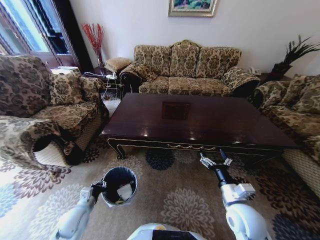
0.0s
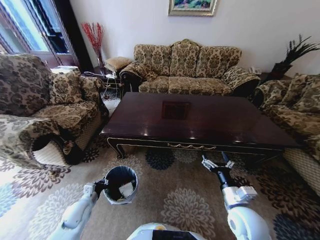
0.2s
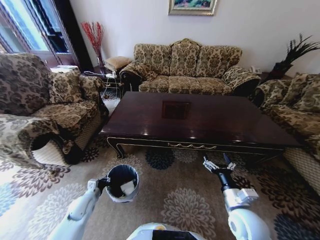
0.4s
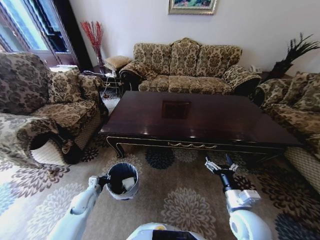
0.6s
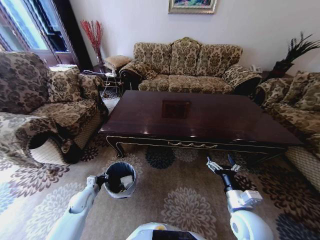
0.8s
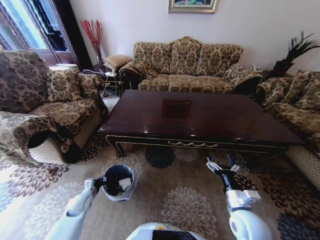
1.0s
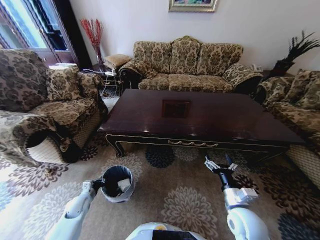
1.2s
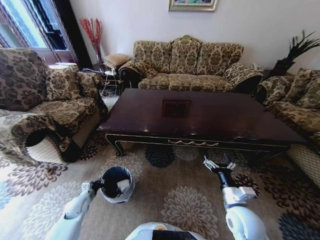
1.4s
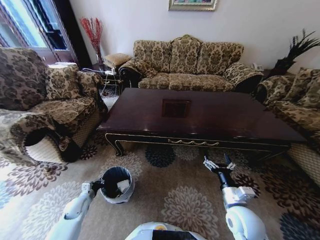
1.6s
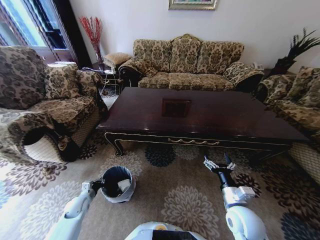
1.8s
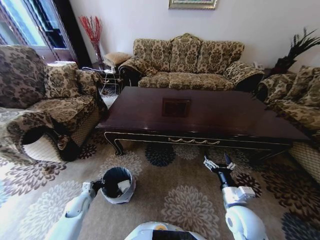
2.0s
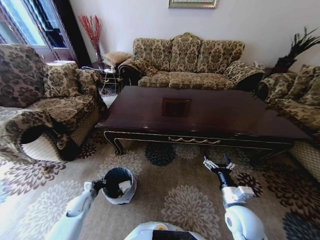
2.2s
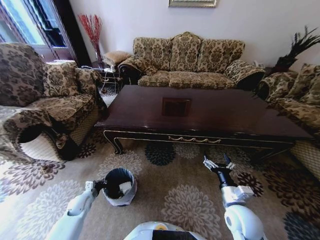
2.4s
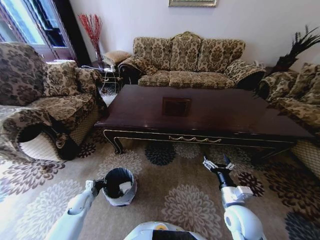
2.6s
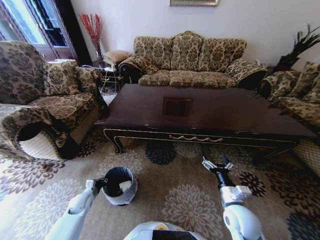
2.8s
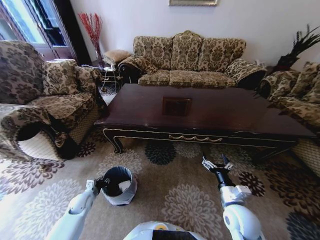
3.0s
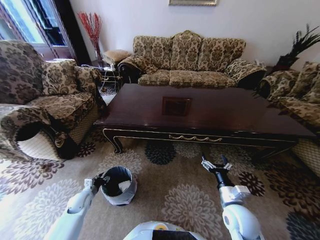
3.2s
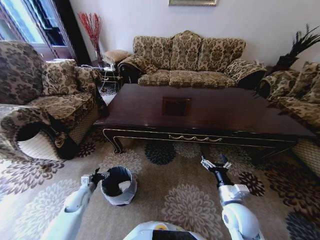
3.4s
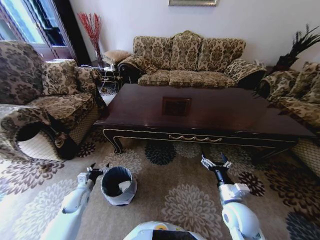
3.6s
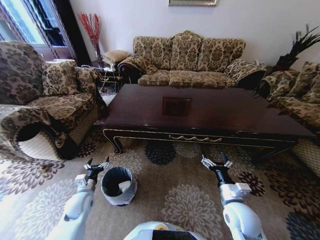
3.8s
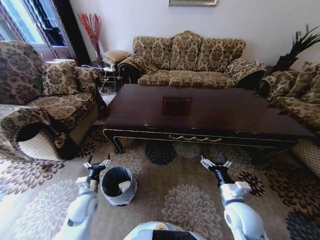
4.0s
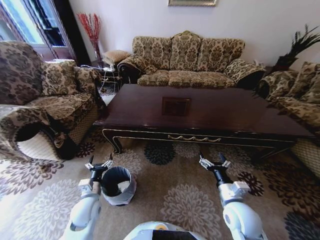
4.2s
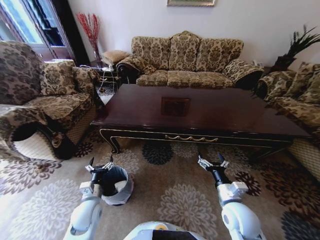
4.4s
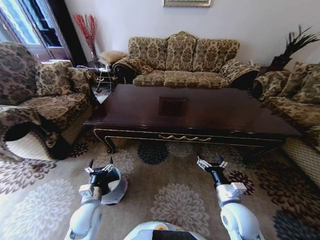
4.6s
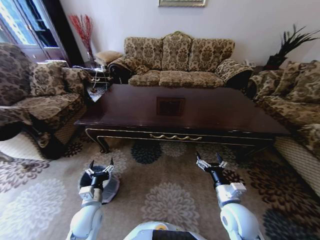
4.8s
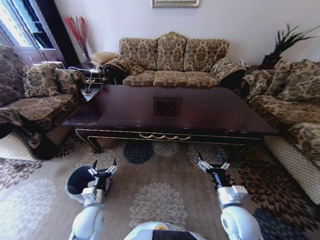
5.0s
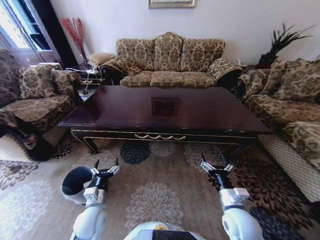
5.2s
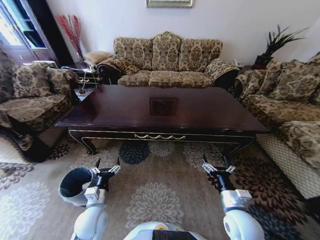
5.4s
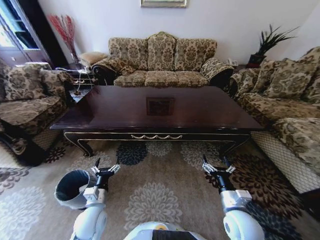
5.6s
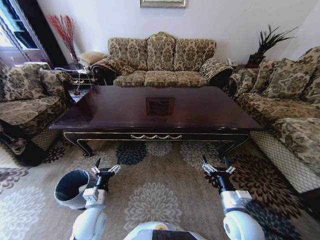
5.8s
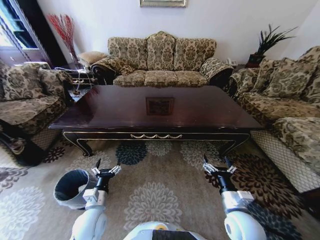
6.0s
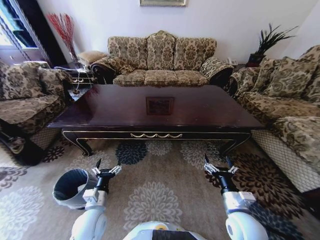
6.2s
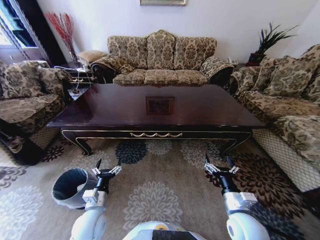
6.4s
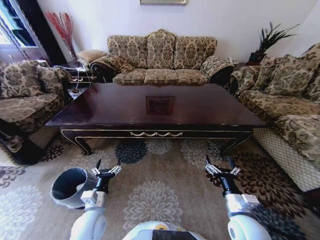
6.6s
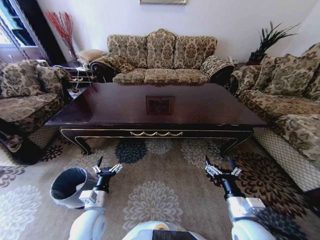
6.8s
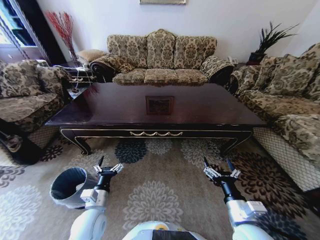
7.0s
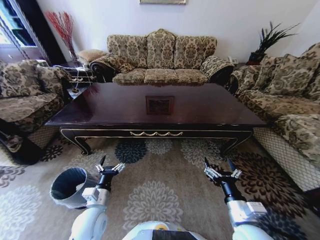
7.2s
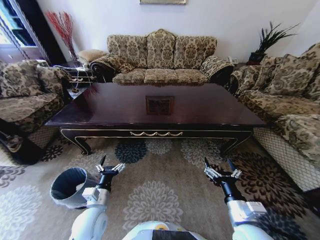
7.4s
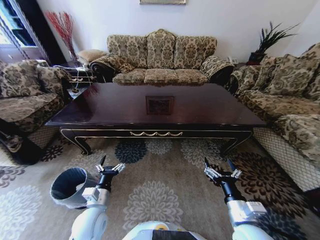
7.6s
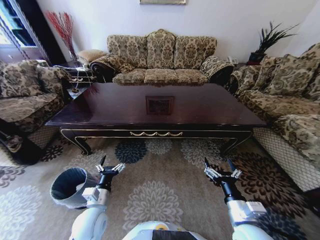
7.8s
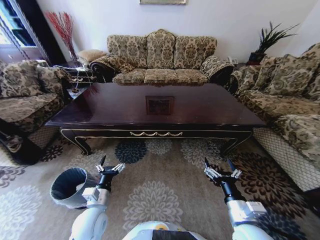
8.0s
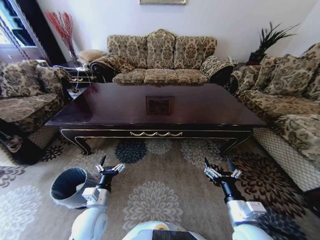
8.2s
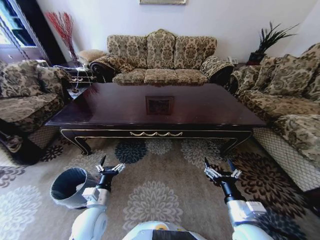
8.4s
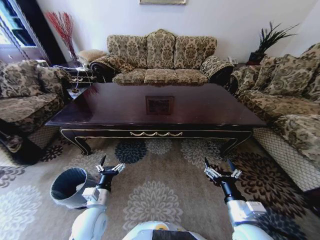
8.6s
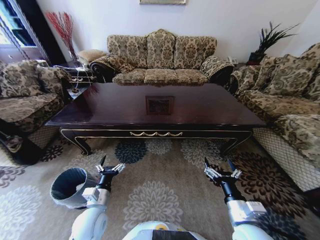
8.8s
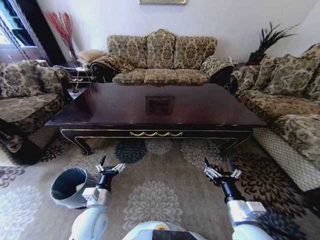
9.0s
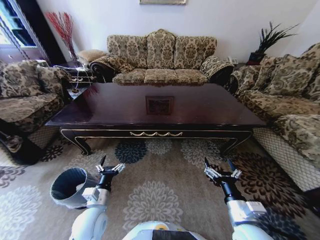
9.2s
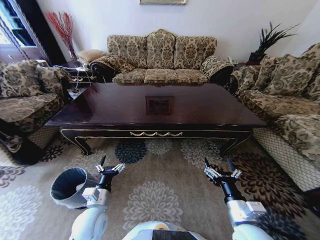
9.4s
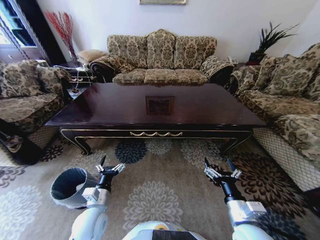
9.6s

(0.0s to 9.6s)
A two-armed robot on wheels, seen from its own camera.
Task of the whole recording: Move to the front of the table and place the trash on the table into the trash bin.
0.0s - 1.6s: The left gripper is displaced downward, to the left and forward by some 10 cm.
1.6s - 3.2s: The left gripper opens.
3.2s - 4.8s: The left gripper shifts roughly 20 cm to the right, upward and backward, and opens.
6.4s - 8.0s: The grippers move only a little.
8.0s - 9.6s: Both grippers stay put.

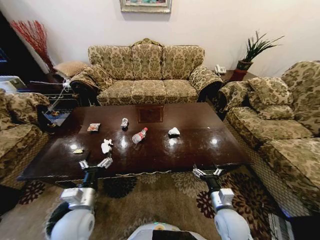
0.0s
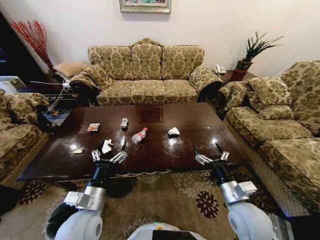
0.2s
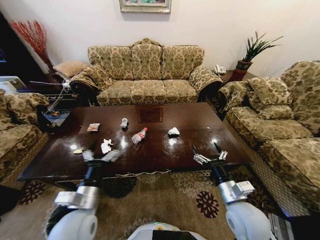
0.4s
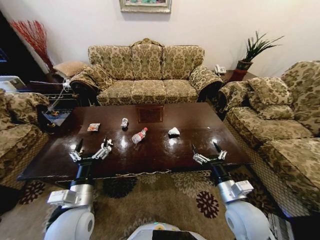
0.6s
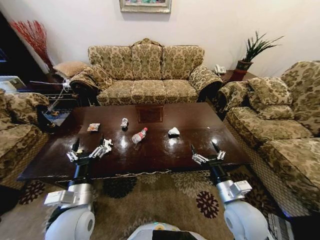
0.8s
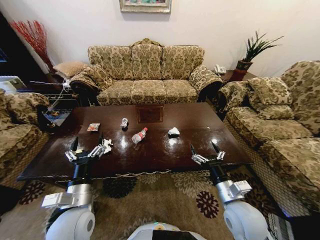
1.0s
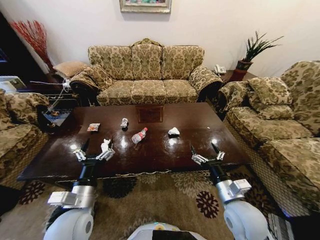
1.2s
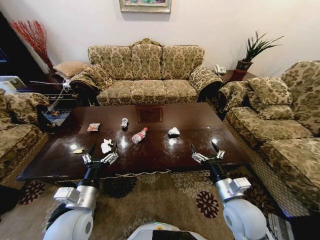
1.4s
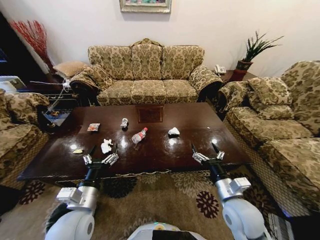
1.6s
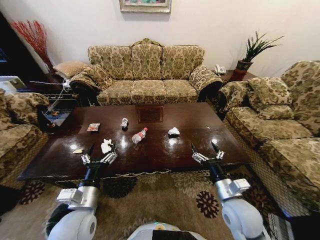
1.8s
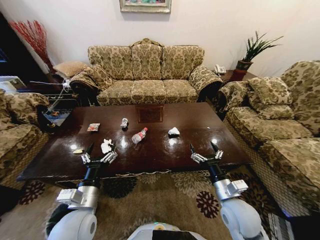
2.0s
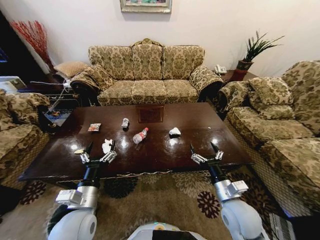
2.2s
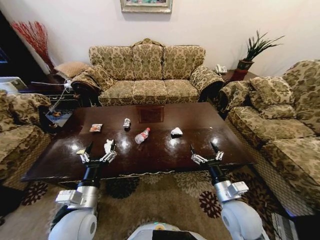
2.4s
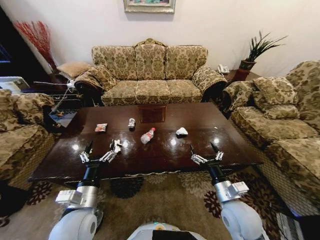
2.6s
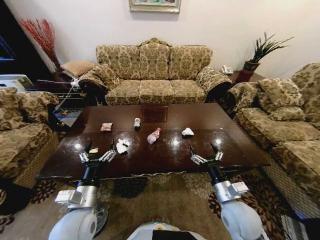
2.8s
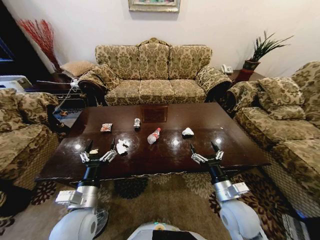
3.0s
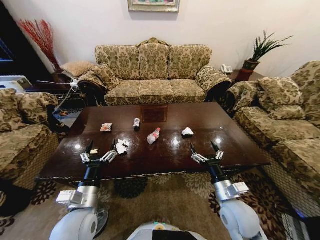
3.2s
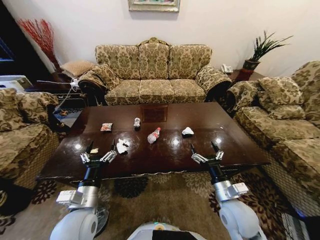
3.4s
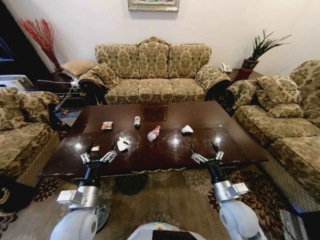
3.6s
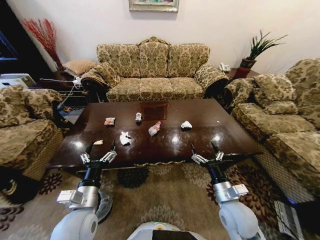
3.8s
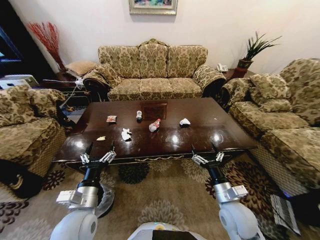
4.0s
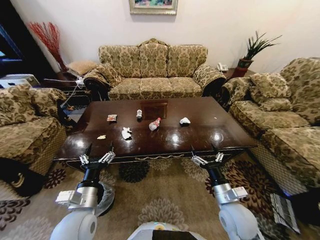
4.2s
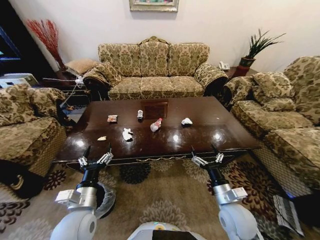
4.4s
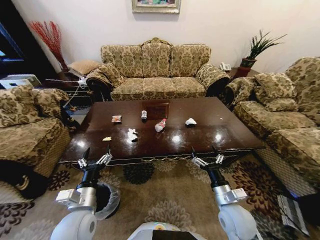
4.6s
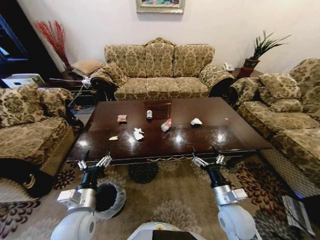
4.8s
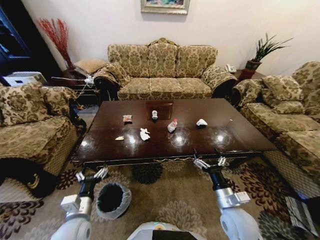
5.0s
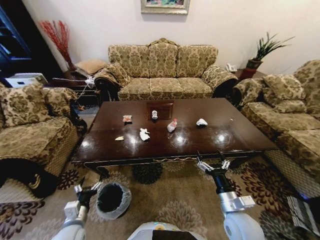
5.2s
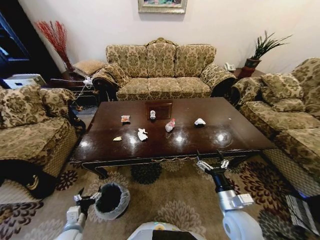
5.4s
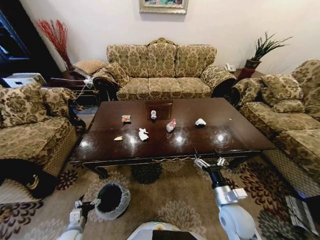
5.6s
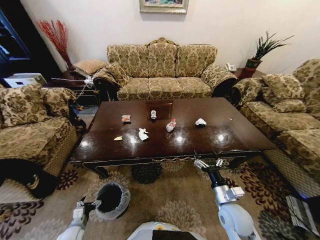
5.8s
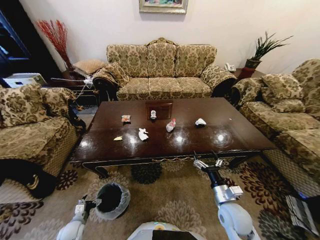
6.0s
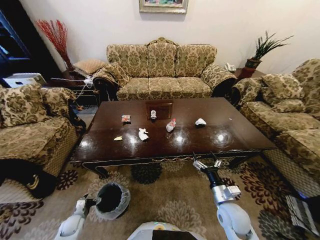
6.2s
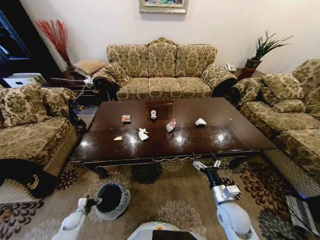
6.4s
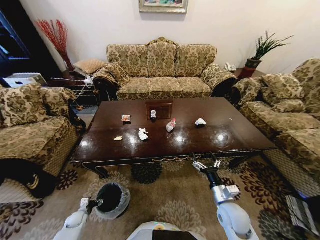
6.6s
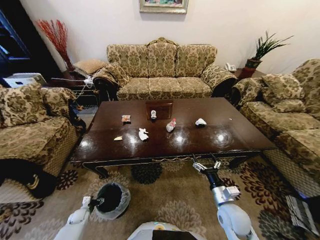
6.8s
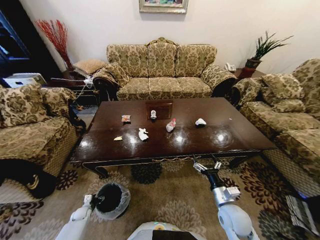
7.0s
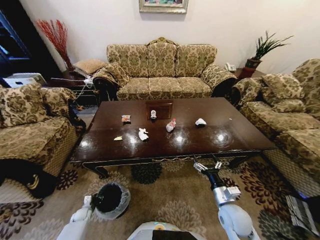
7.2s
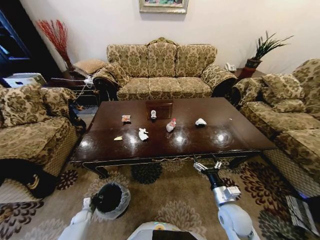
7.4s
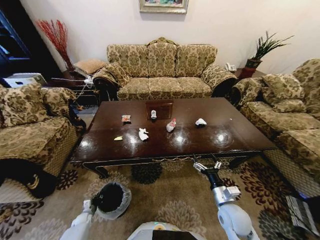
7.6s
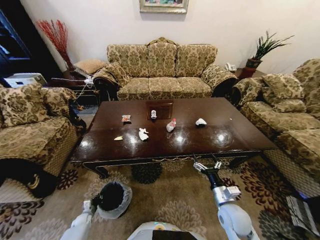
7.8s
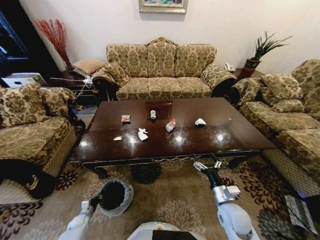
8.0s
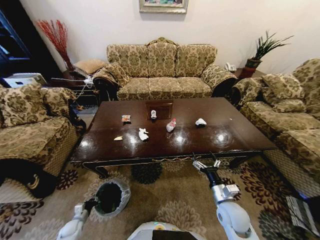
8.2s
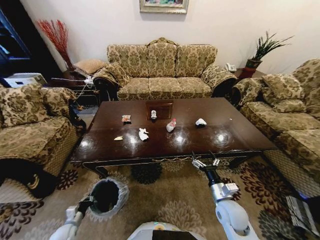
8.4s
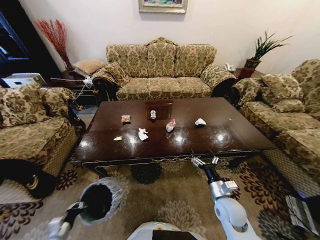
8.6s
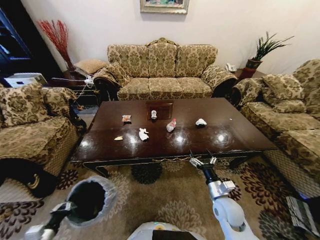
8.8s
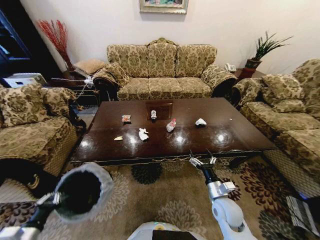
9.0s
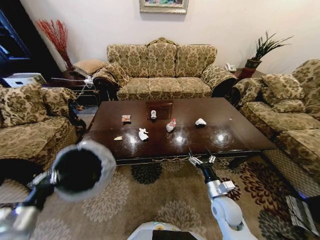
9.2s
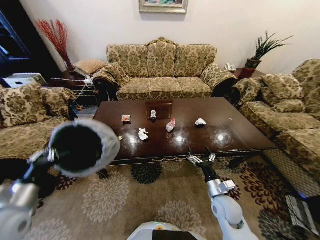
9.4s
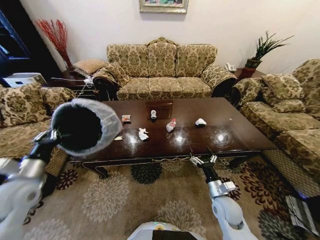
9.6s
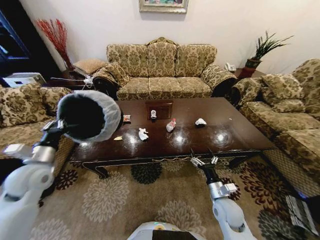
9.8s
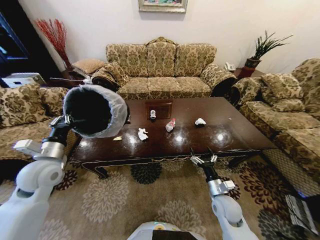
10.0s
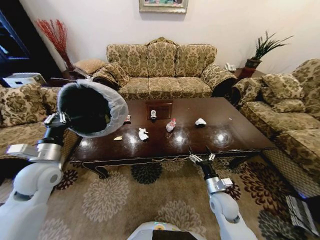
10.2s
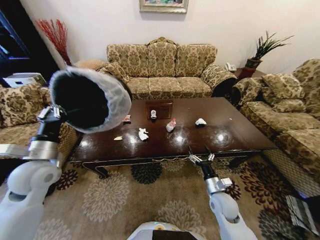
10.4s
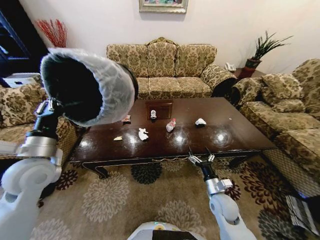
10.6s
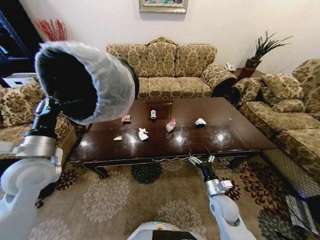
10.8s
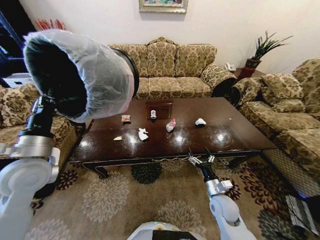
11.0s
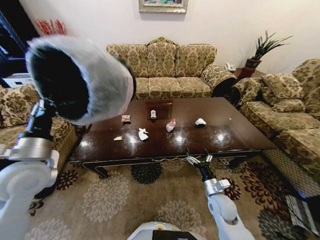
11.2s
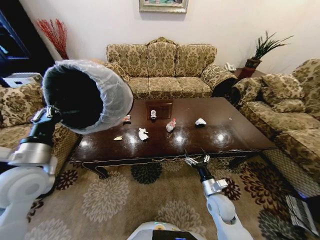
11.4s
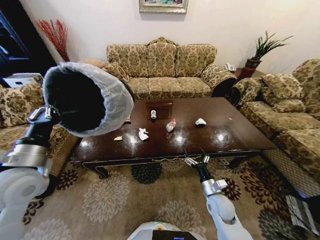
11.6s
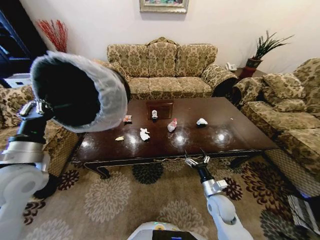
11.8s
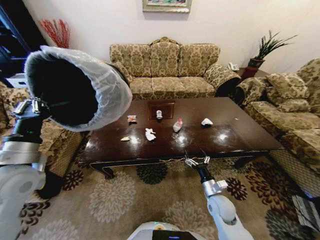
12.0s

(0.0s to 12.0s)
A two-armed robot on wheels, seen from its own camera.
Task of the whole recording: Move to the front of the table and place the trash on the table into the trash bin.
4.4s - 6.0s: The left gripper heads downward and to the left, covering some 35 cm.
6.0s - 7.6s: The left gripper moves downward, approximately 10 cm, and closes its fingers.
7.6s - 9.0s: The left gripper heads upward and backward, covering some 35 cm.
9.0s - 10.4s: The left gripper is displaced upward and forward by approximately 30 cm.

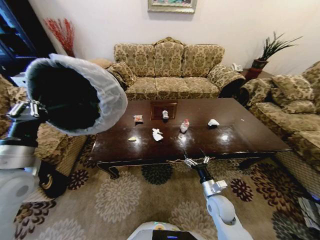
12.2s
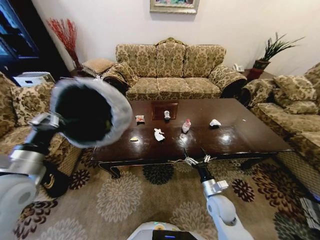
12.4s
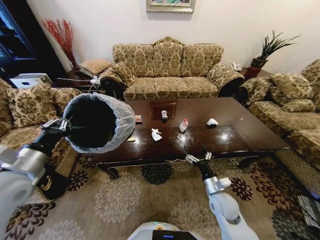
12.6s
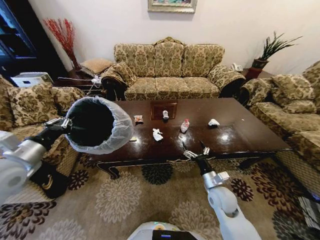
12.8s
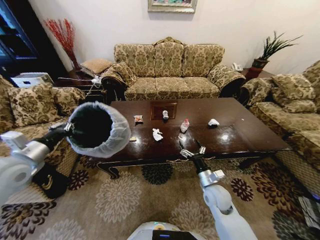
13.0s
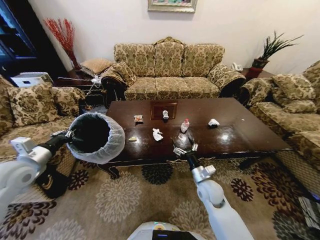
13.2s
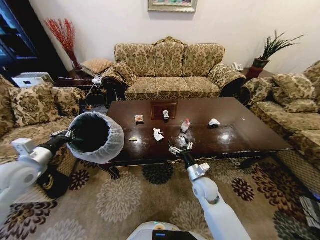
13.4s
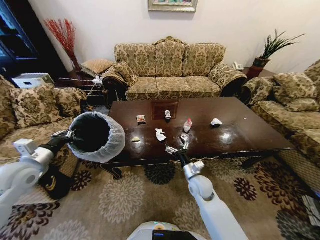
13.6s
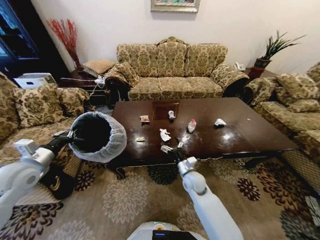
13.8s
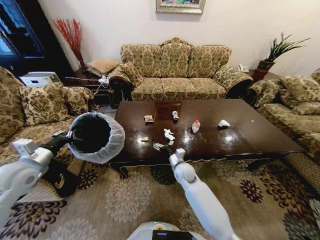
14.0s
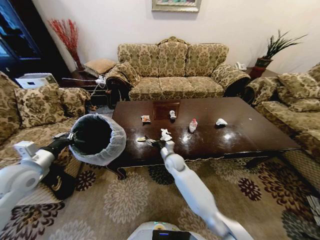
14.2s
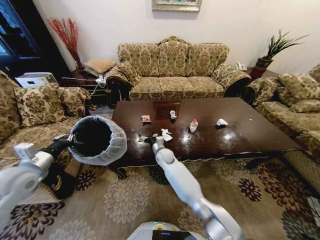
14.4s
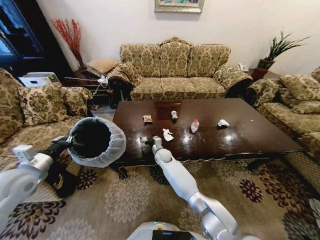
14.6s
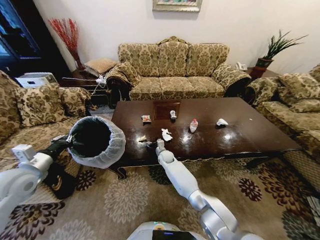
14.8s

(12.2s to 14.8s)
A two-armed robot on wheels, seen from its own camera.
Task of the whole recording: Move to the front of the table and place the trash on the table into the trash bin.
12.2s - 13.4s: The left gripper moves to the left, roughly 5 cm, while the right gripper moves to the left and forward, approximately 10 cm.
13.4s - 14.8s: The right gripper goes approximately 25 cm forward and to the left.
